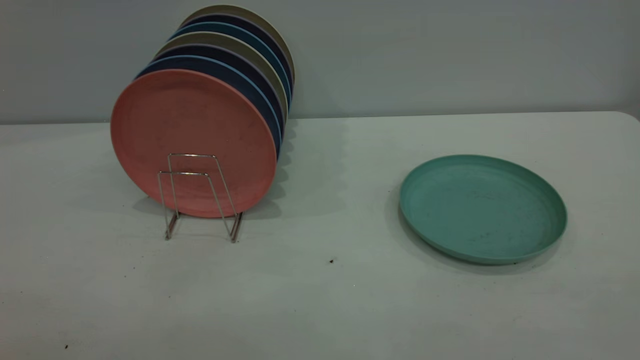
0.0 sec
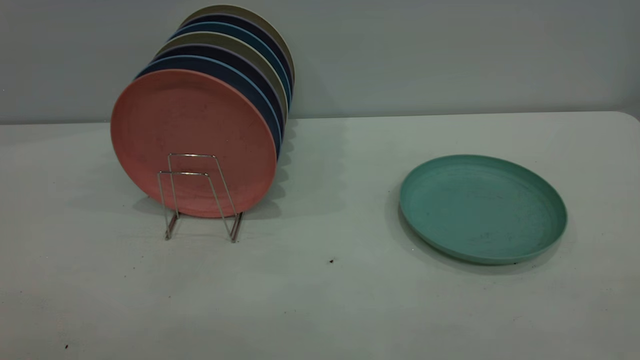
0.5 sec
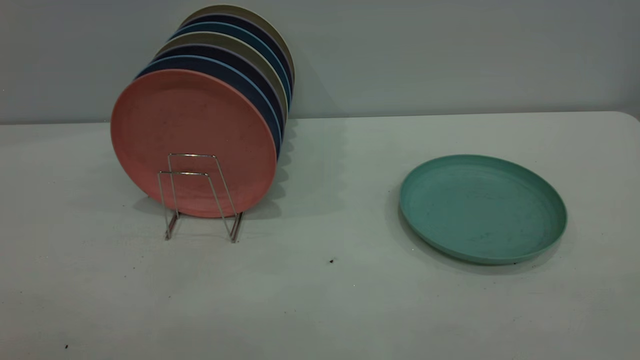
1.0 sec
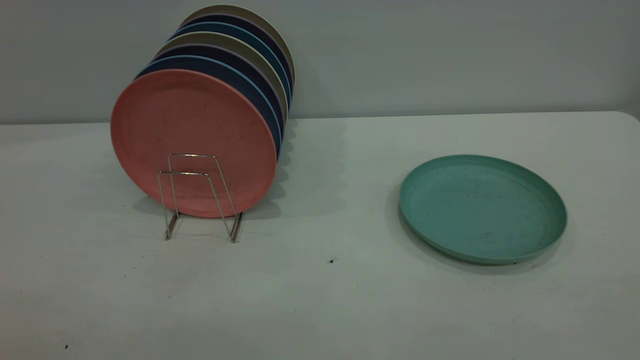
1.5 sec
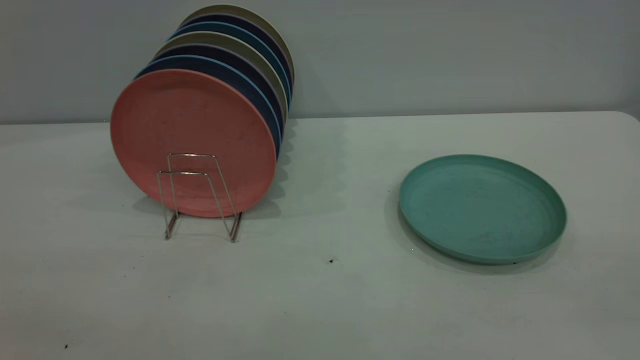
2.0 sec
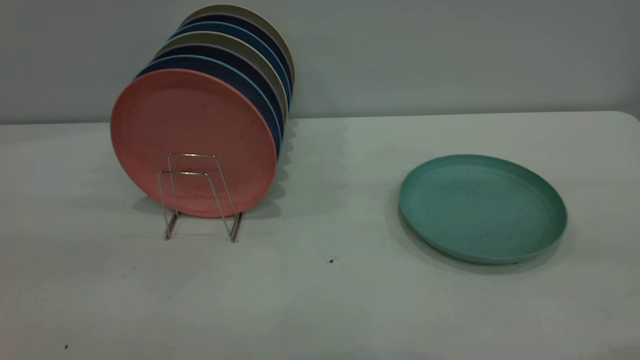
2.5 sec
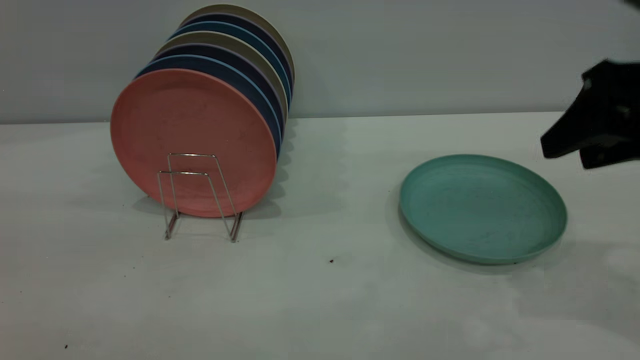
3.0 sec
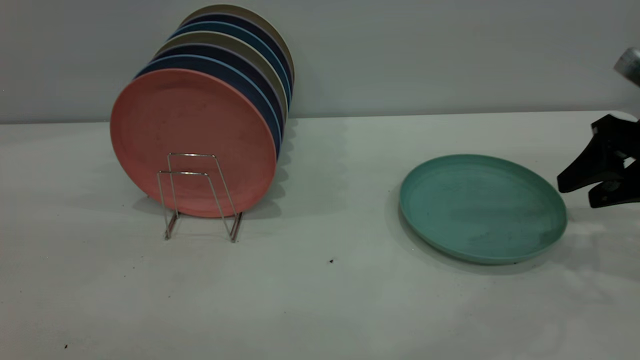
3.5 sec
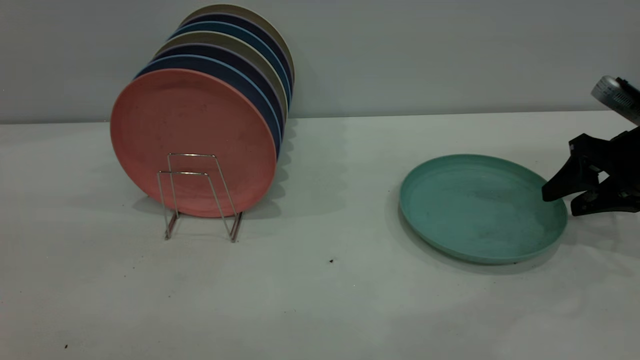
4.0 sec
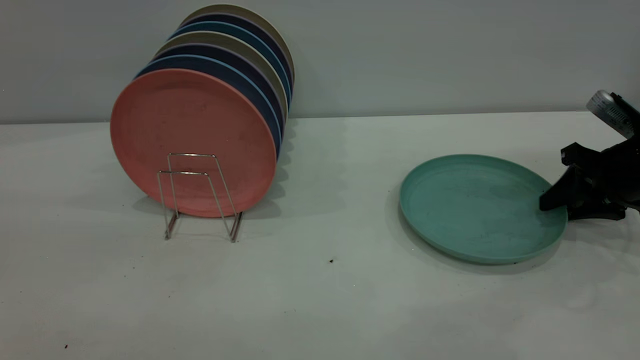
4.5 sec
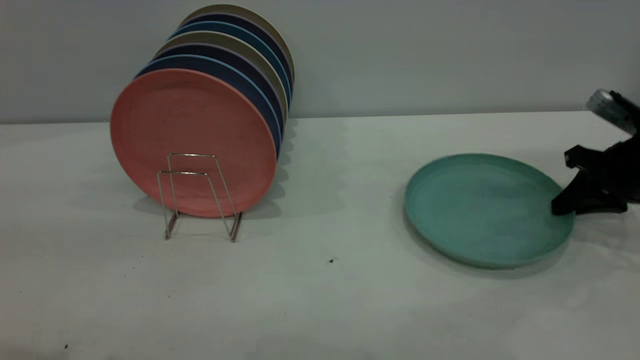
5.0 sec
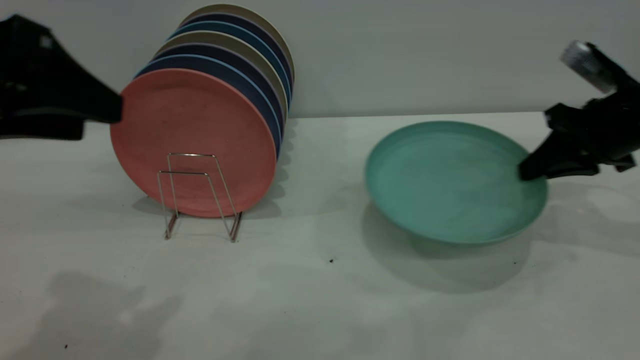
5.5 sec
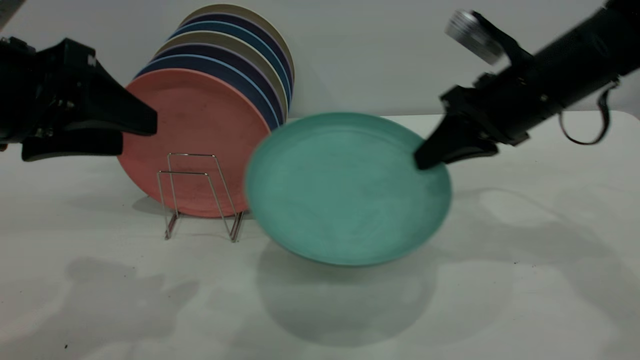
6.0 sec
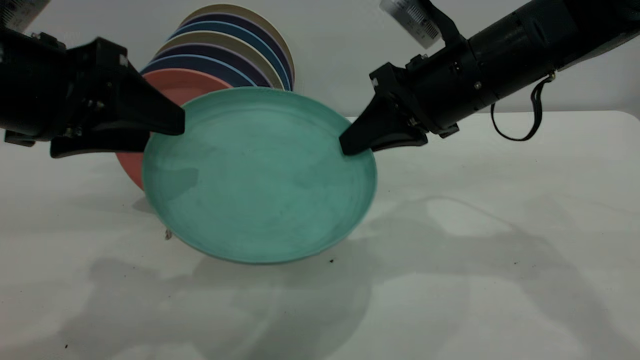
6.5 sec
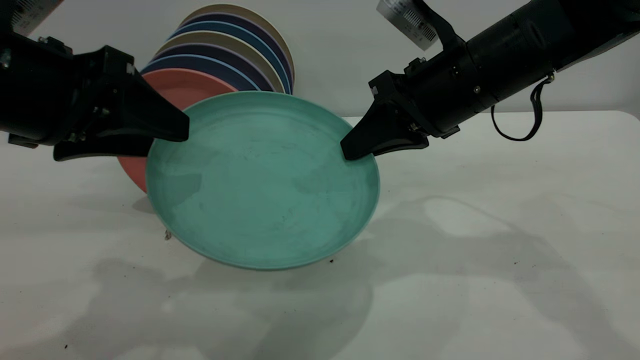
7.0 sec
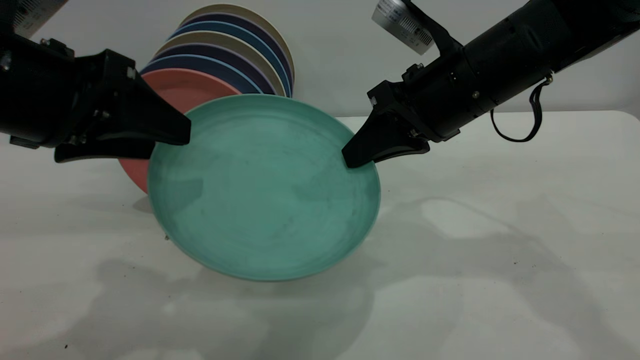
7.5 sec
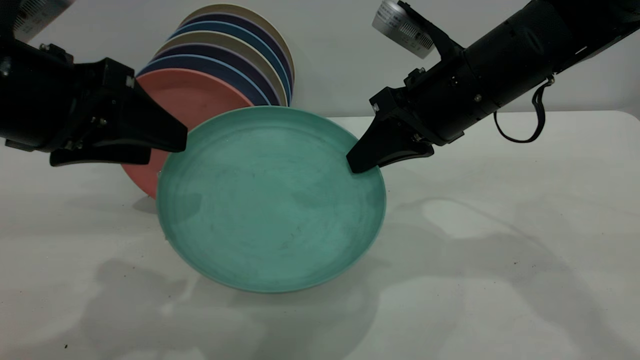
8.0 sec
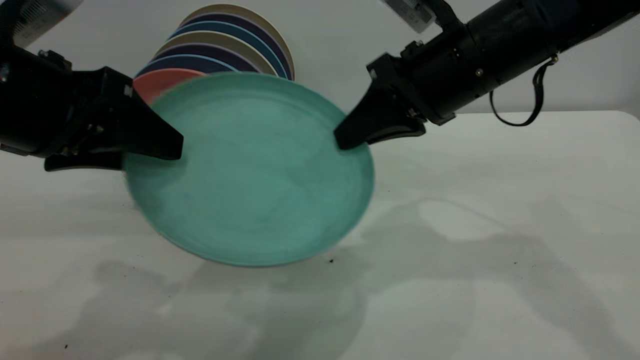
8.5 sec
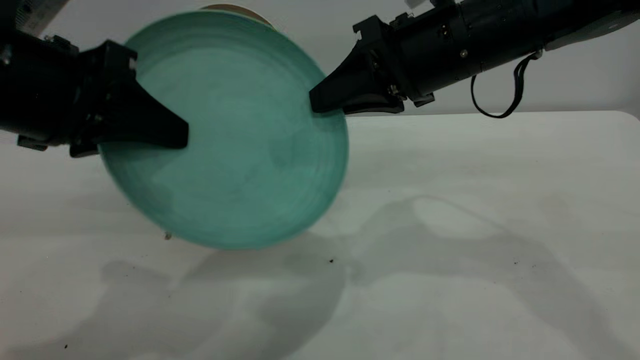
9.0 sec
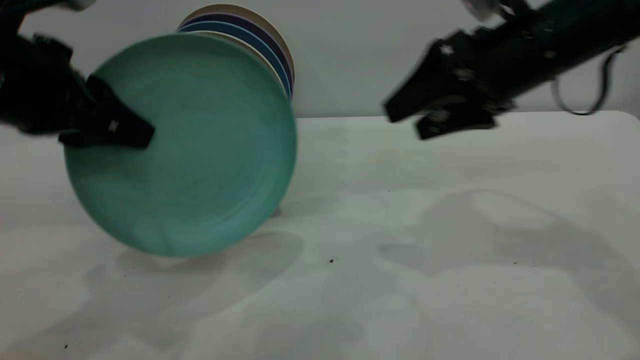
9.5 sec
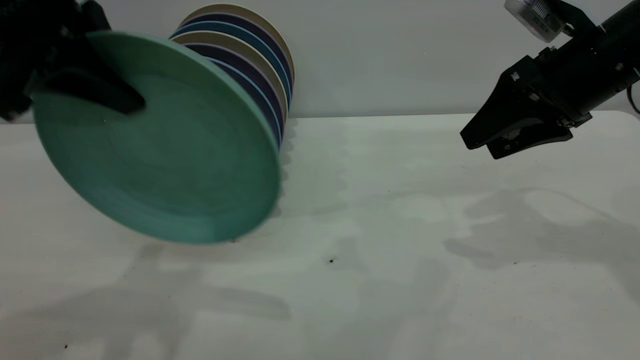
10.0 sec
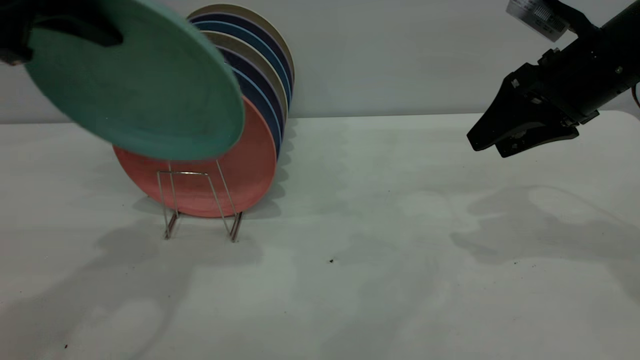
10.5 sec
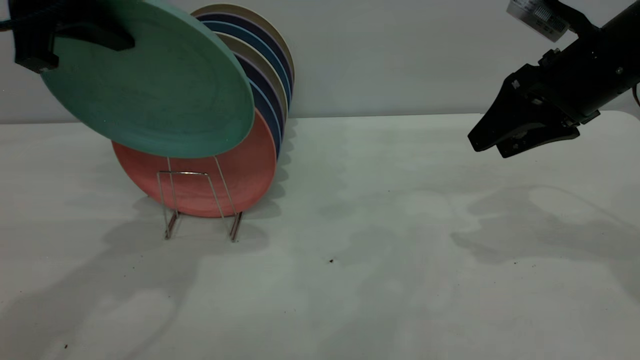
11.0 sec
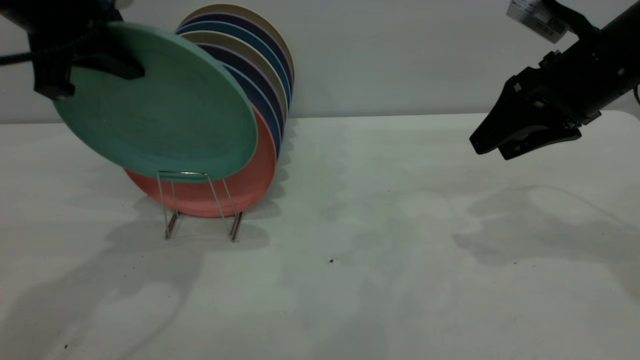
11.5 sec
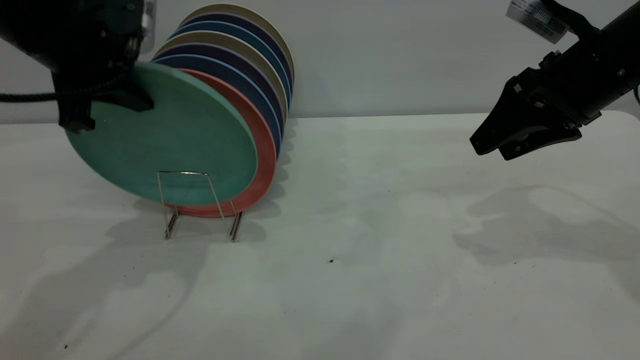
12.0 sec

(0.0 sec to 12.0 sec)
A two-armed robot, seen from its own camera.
Task of the whole recording: the right gripper grasp the green plate, the right gripper pass the green plate to the left gripper, and the left gripper place the green plate on the plate rack.
Step, 0.0 sec - 5.0 sec: Pick up the plate with the right gripper.
Step, 5.5 sec - 9.0 sec: Pass the plate from the right gripper to the left gripper.
2.0 sec - 4.0 sec: The right gripper moves forward and downward, some 50 cm.
4.0 sec - 6.0 sec: The left gripper moves forward and downward, approximately 20 cm. Meanwhile the right gripper goes some 20 cm to the left and upward, and closes.
6.0 sec - 8.0 sec: The right gripper goes about 5 cm to the left.
8.0 sec - 10.0 sec: The left gripper travels upward by approximately 5 cm, and closes its fingers. Meanwhile the right gripper moves to the right, approximately 10 cm, and opens its fingers.
10.0 sec - 12.0 sec: The left gripper heads forward and downward, covering some 10 cm.

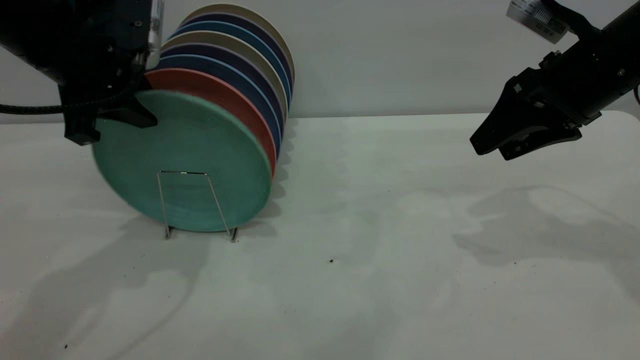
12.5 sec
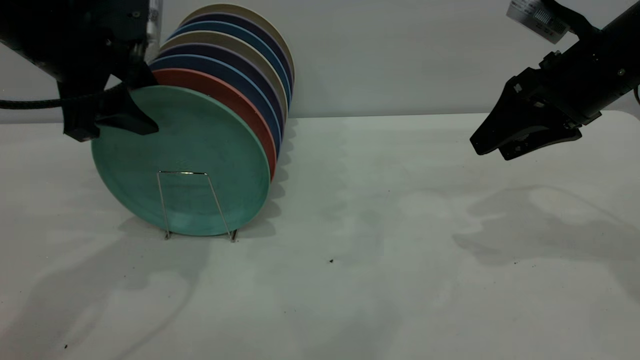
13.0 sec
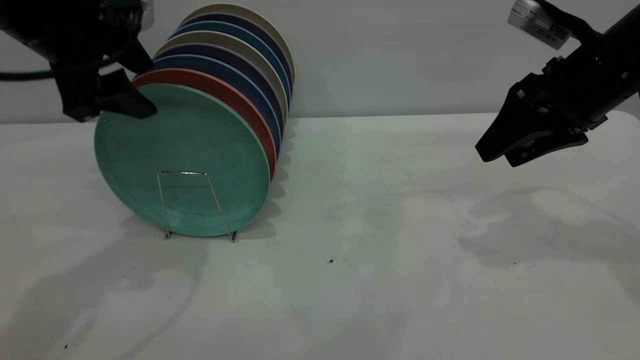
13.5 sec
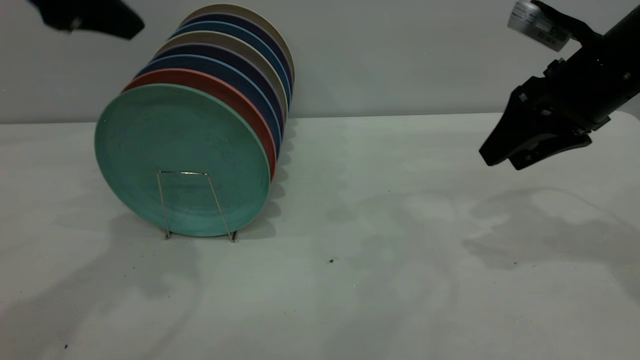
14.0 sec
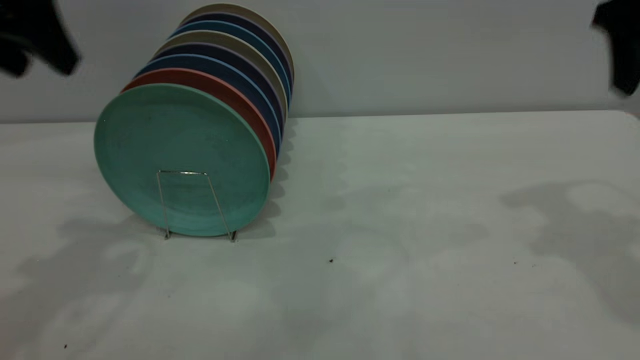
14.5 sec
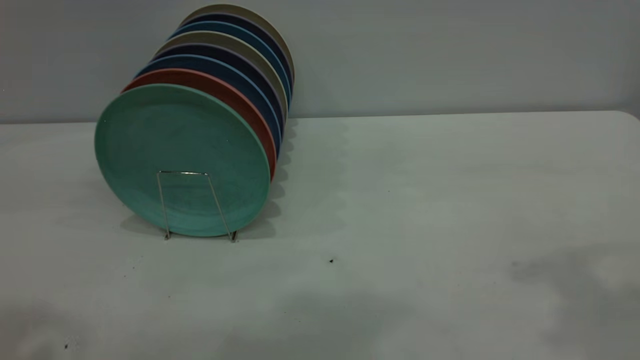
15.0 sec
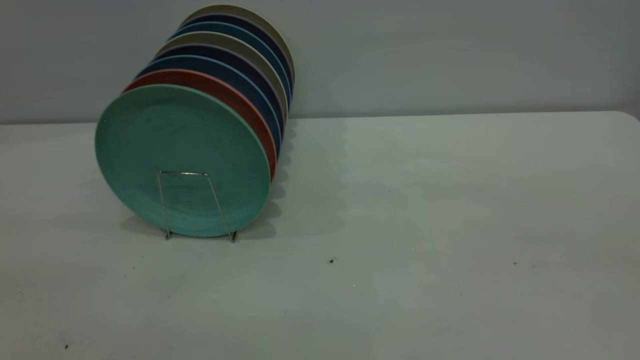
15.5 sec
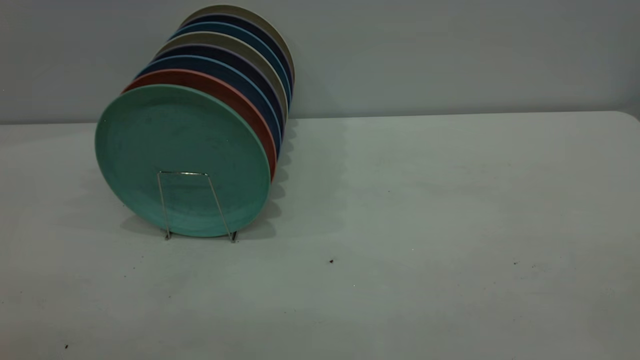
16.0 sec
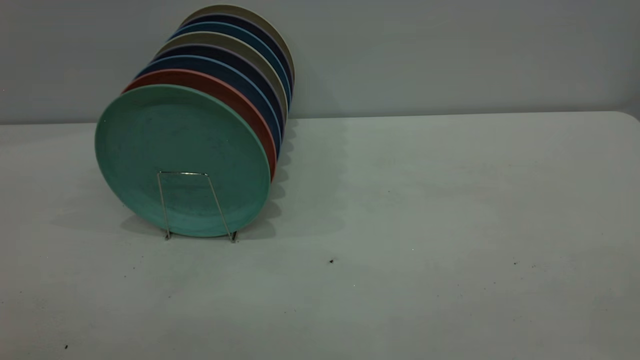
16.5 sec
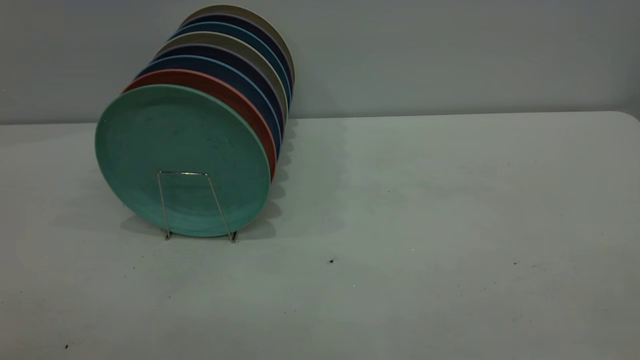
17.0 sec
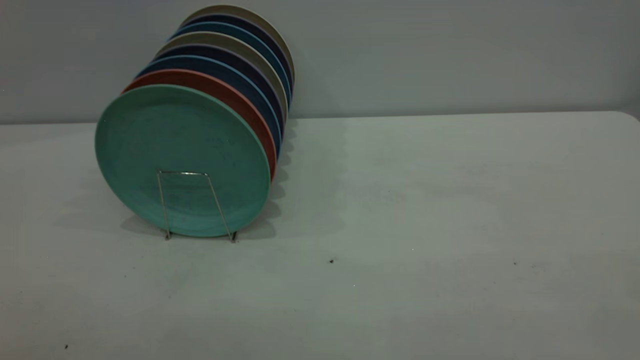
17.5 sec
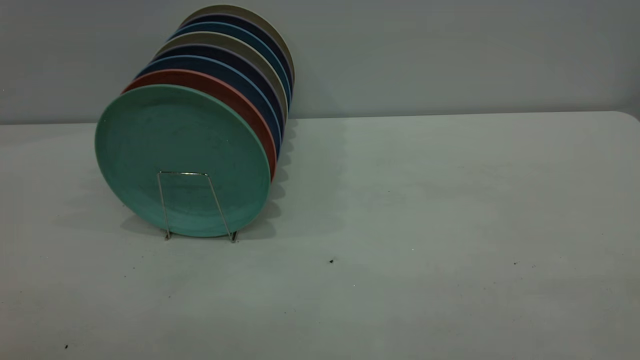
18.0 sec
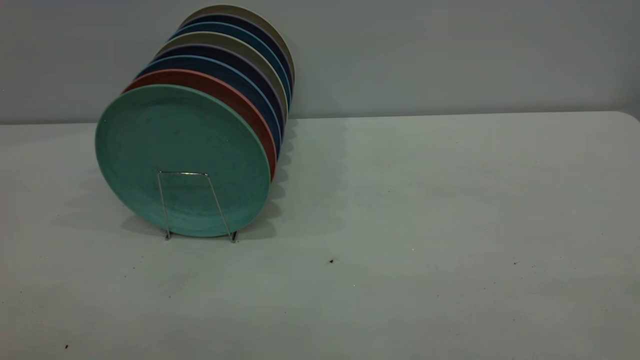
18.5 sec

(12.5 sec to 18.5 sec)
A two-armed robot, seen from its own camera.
Task of the whole recording: the right gripper grasp the green plate, the right gripper pass the green plate to the left gripper, and the left gripper place the green plate on the plate rack.
12.5 sec - 14.5 sec: The left gripper heads upward and backward, covering about 10 cm, and opens up; the right gripper goes approximately 10 cm upward.
14.5 sec - 16.5 sec: The two grippers go about 35 cm backward.

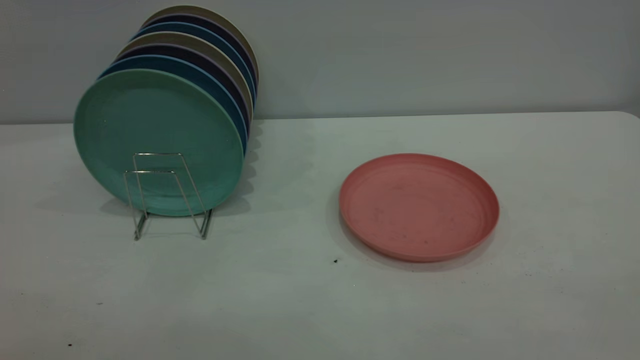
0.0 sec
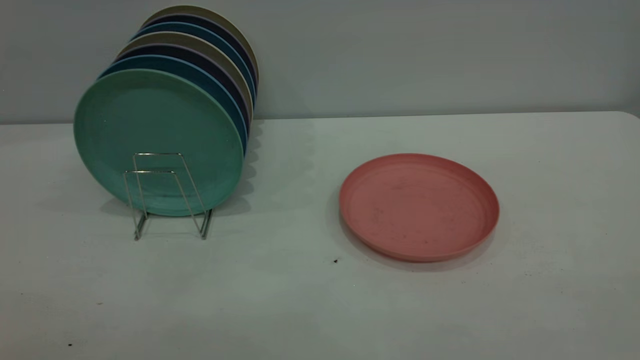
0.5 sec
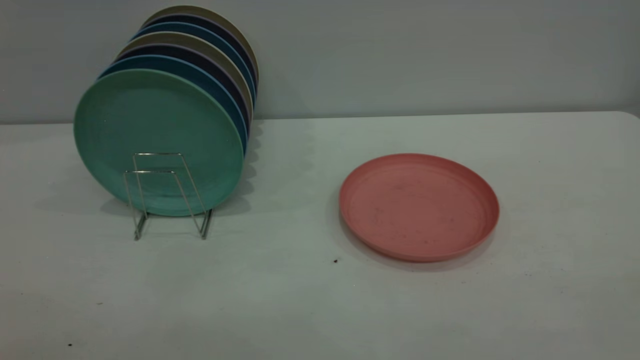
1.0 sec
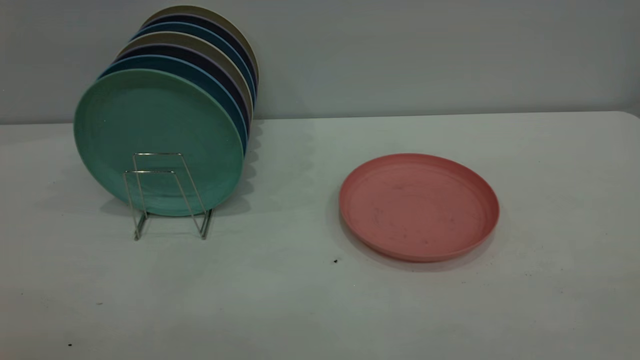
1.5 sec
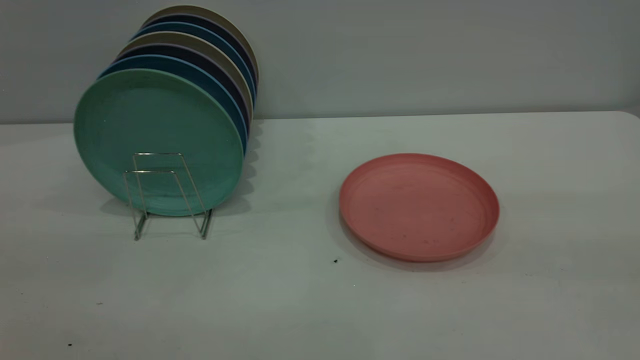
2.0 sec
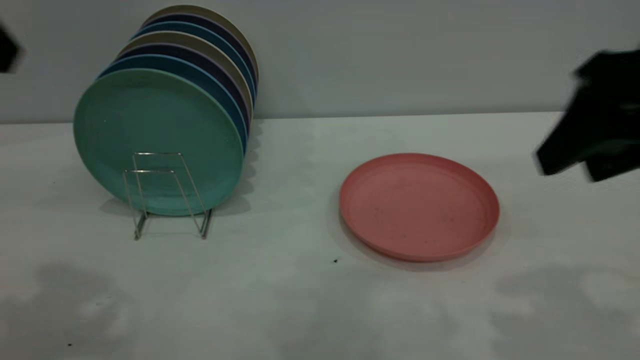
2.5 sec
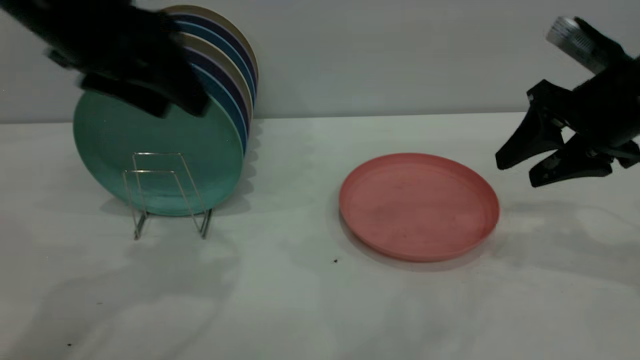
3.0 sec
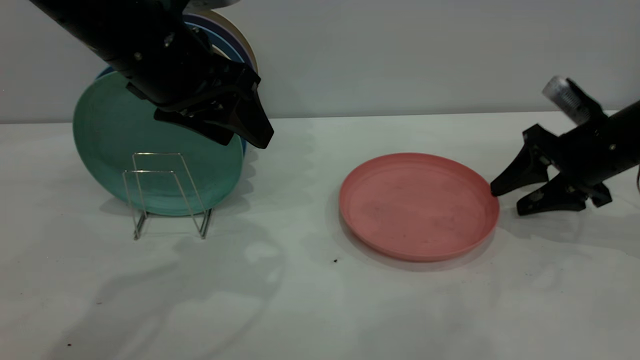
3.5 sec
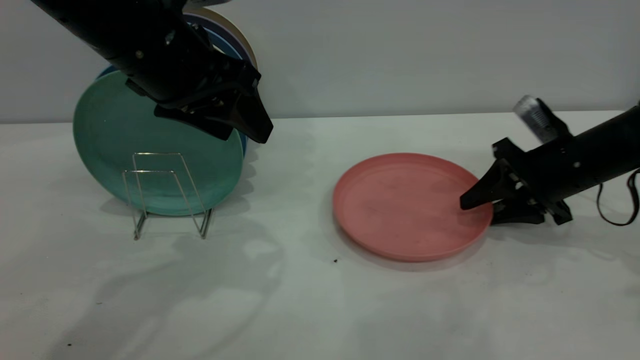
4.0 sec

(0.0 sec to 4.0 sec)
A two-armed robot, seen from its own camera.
Task of the whole recording: the right gripper grasp the pink plate, the right gripper pass the pink plate to the left gripper, and the left gripper place the pink plate on the plate rack.
2.0 sec - 4.0 sec: The left gripper heads forward, downward and to the right, covering about 30 cm. Meanwhile the right gripper moves forward and downward, about 40 cm.
